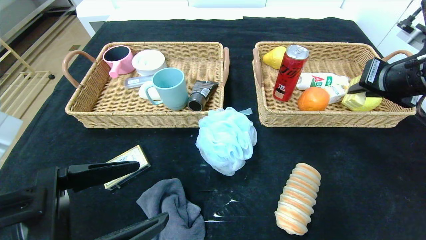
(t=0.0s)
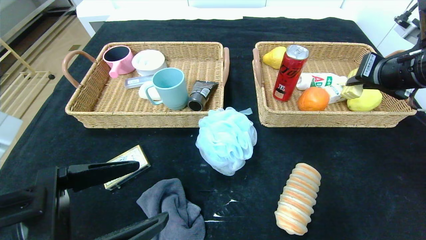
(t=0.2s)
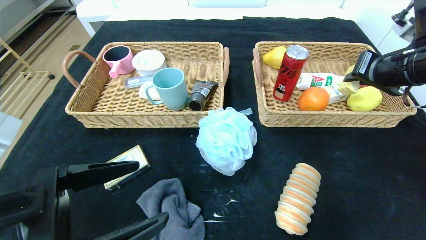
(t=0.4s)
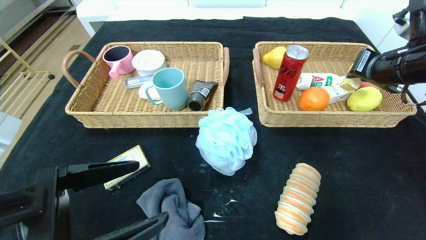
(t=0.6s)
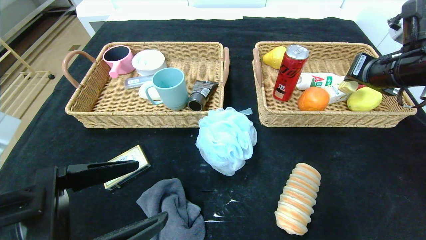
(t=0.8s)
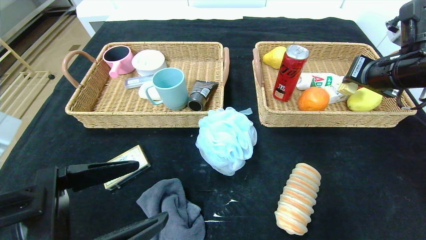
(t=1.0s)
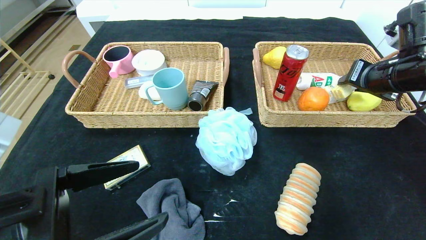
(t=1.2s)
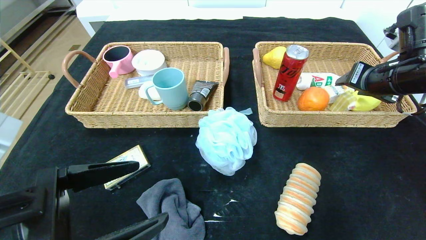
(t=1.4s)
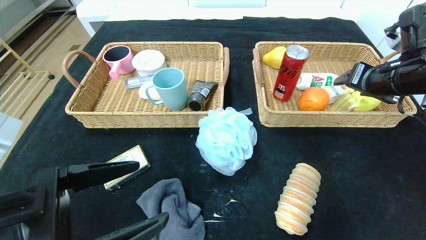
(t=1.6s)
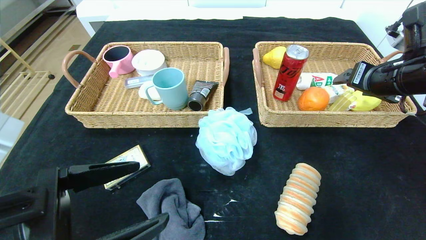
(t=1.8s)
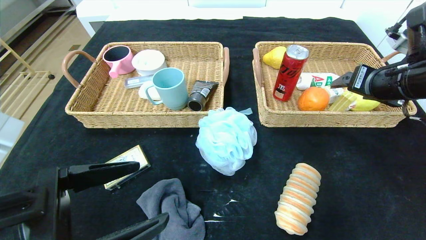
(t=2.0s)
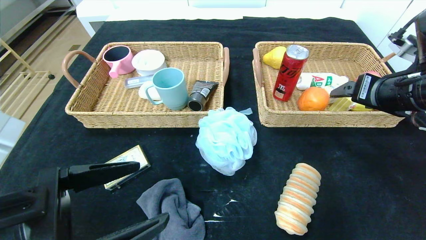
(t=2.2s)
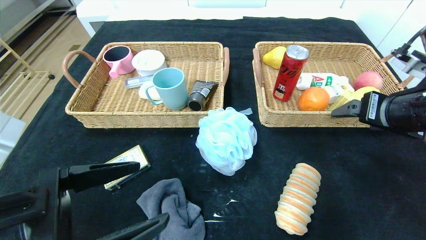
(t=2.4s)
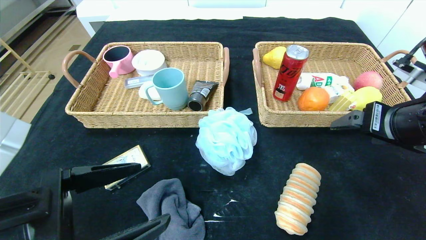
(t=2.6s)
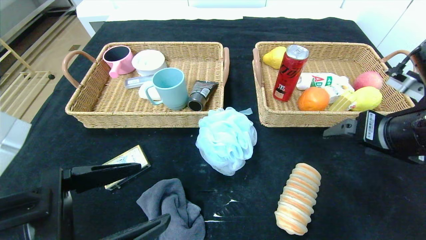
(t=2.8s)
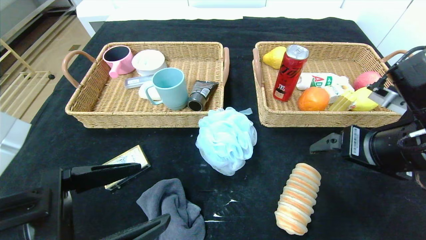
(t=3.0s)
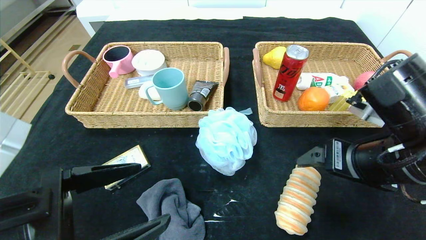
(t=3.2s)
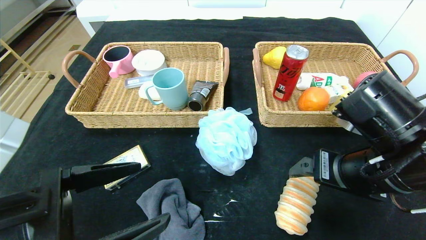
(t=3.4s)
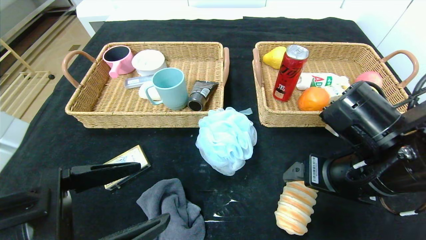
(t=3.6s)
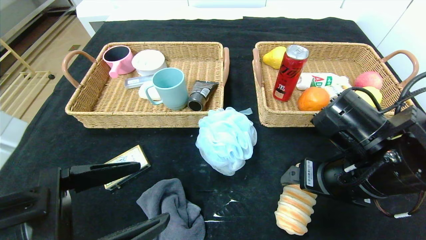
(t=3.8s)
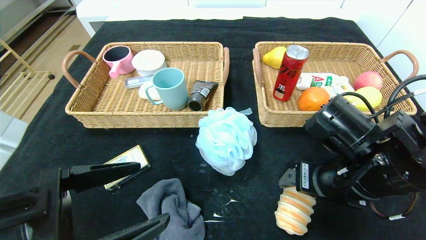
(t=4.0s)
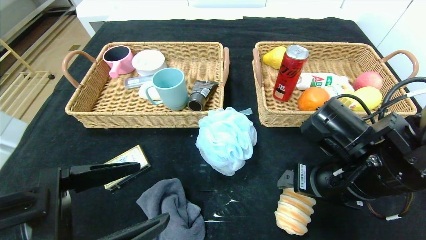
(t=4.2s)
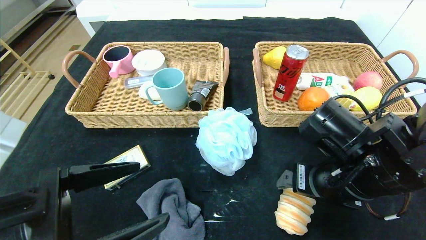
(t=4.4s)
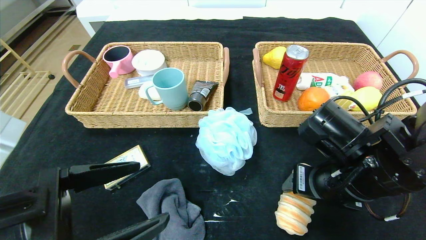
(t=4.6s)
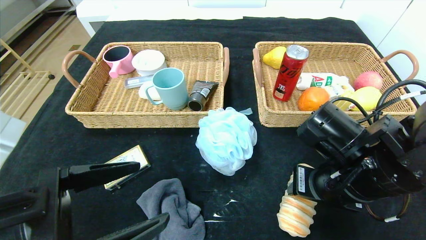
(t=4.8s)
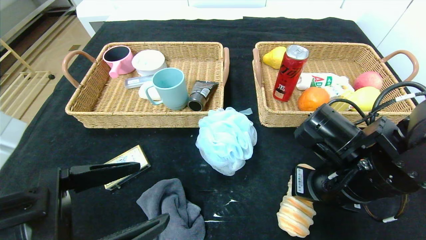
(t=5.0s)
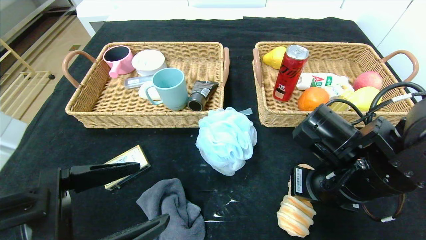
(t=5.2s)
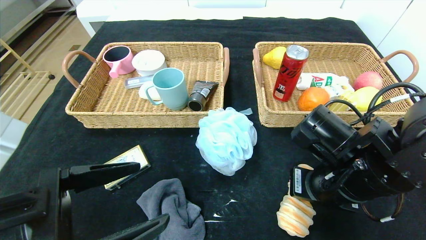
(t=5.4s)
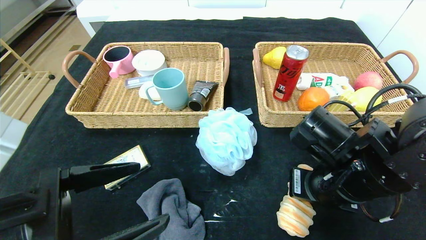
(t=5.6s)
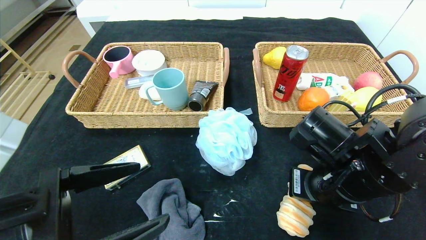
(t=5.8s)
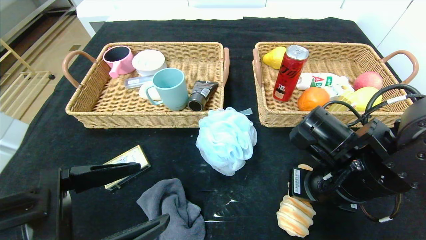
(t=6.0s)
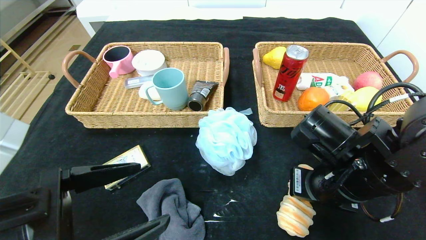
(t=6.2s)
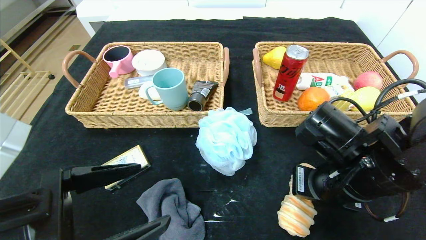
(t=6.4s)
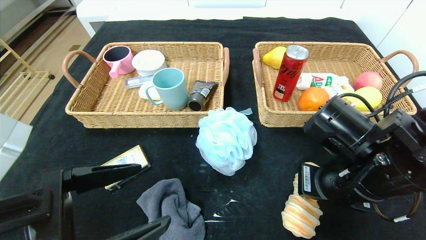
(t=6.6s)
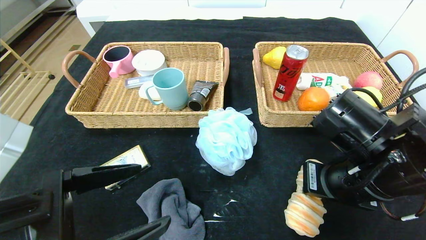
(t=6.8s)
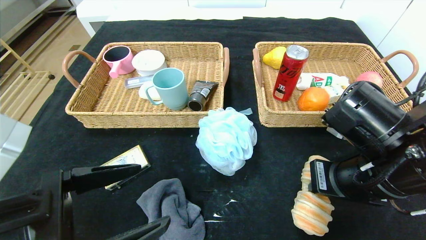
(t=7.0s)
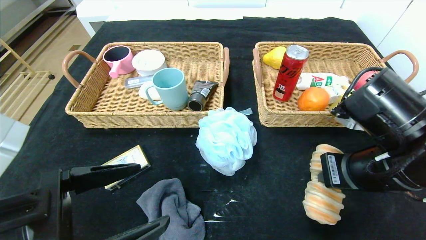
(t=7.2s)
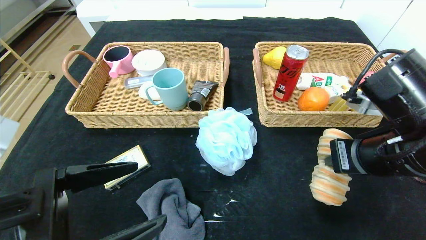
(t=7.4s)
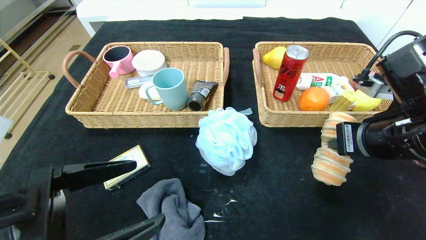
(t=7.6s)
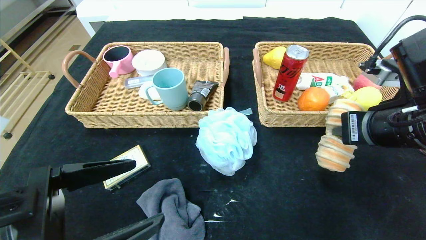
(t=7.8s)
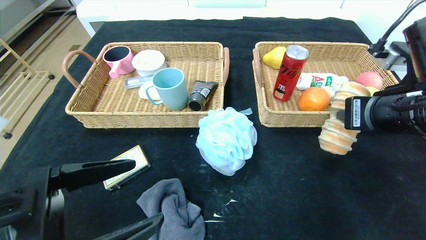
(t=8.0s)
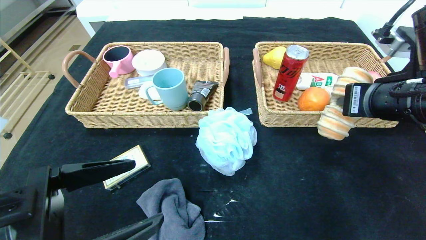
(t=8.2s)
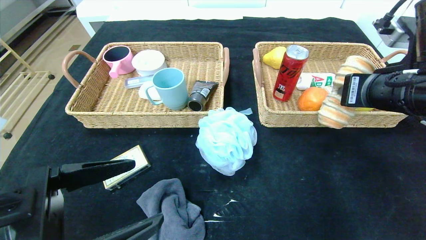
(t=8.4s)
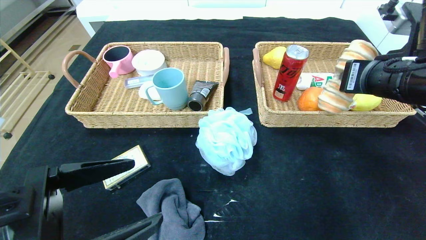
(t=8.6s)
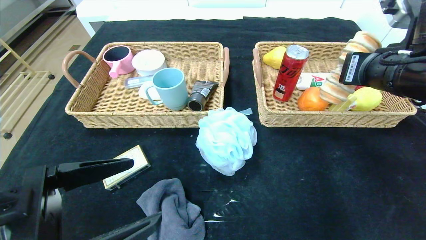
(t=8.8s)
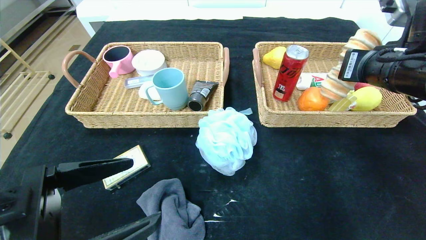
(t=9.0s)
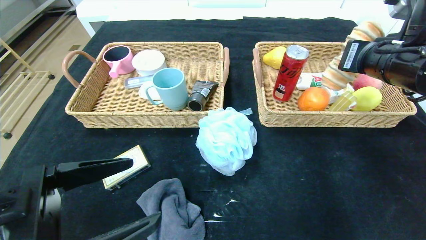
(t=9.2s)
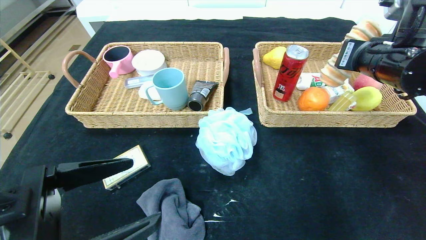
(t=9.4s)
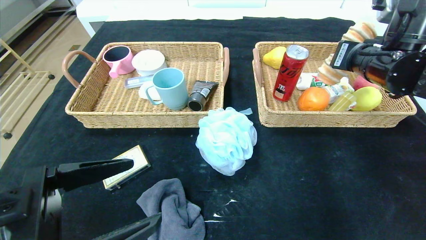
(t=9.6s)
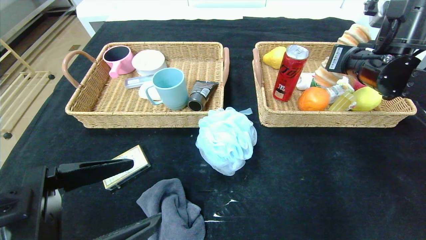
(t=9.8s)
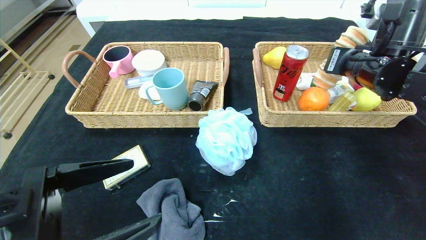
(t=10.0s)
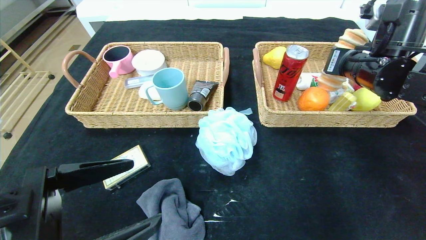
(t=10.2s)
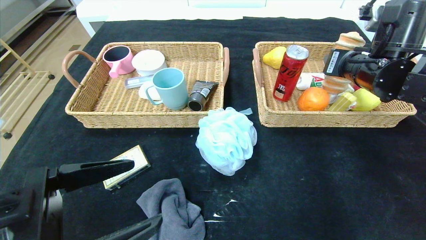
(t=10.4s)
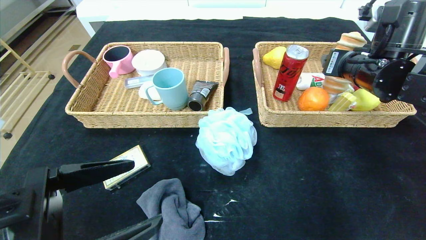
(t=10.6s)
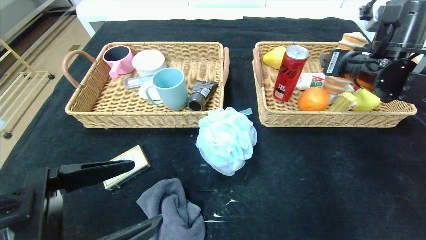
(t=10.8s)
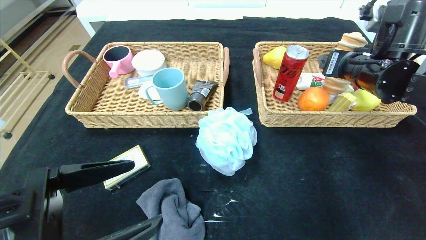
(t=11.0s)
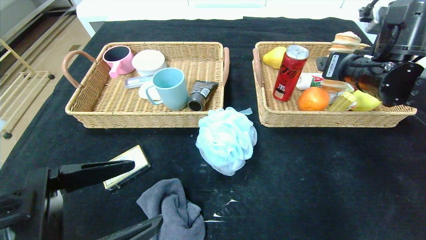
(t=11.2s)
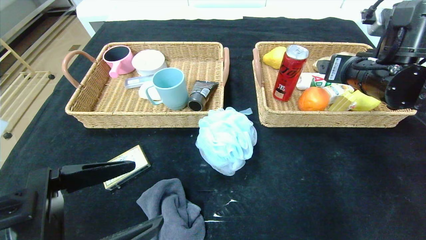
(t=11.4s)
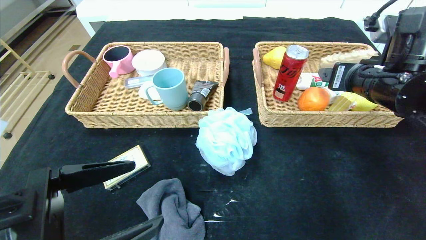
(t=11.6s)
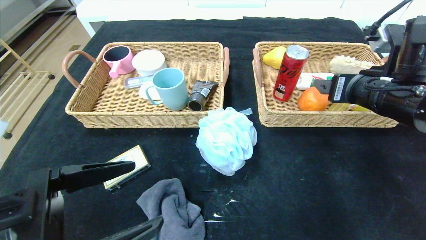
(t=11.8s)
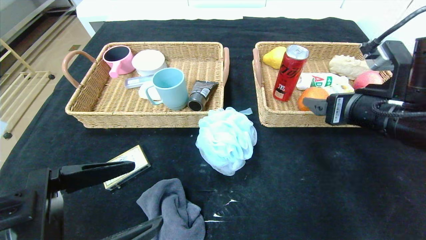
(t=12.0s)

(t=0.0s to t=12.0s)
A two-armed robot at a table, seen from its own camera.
Step, t=1.6s - t=11.2s: Grasp the long bread and put it in the right basket.
t=0.0s - t=1.6s: The right gripper opens up.
t=1.6s - t=3.0s: The right gripper is displaced backward and to the left by roughly 15 cm.
t=3.0s - t=4.4s: The right gripper is displaced to the left and downward by approximately 10 cm.
t=4.4s - t=6.0s: The right gripper closes.
t=6.0s - t=7.6s: The right gripper is displaced upward and to the right by approximately 10 cm.
t=7.6s - t=9.0s: The right gripper travels forward and upward by roughly 10 cm.
t=9.0s - t=10.4s: The right gripper heads forward, covering about 5 cm, and opens.
t=10.4s - t=12.0s: The right gripper is displaced backward by some 10 cm, and opens.

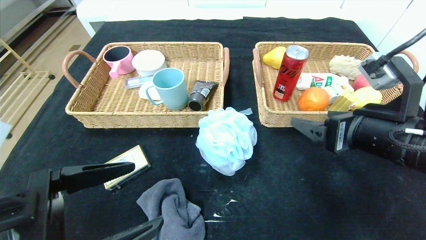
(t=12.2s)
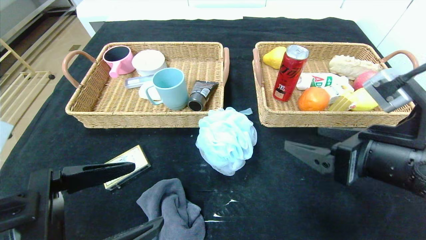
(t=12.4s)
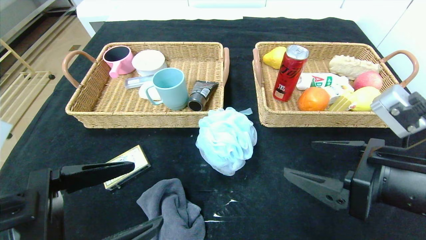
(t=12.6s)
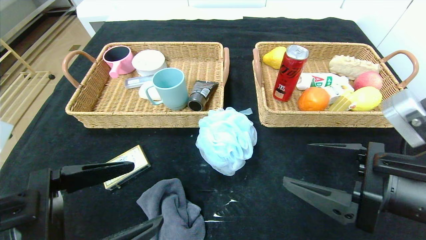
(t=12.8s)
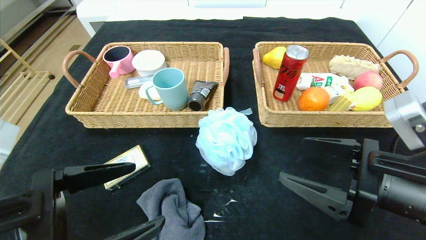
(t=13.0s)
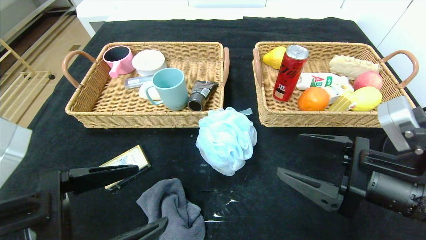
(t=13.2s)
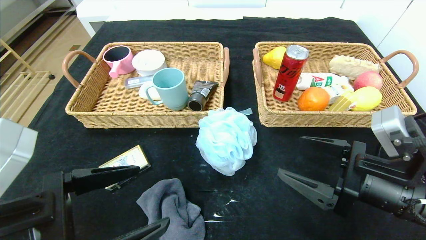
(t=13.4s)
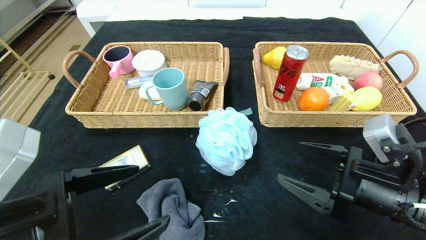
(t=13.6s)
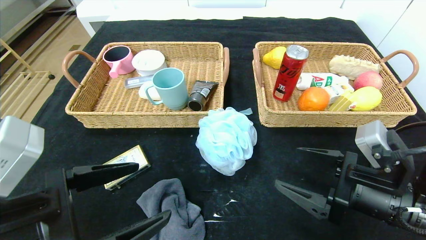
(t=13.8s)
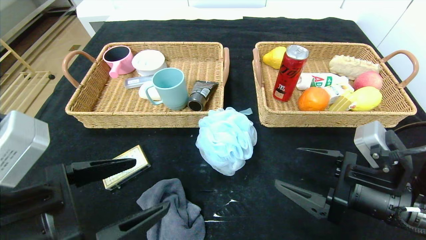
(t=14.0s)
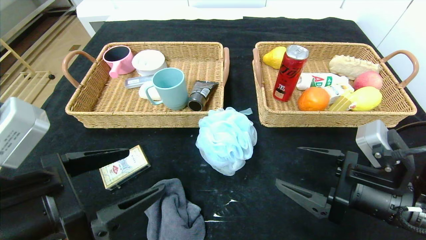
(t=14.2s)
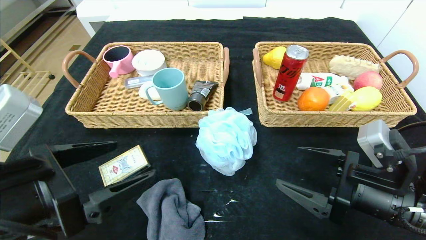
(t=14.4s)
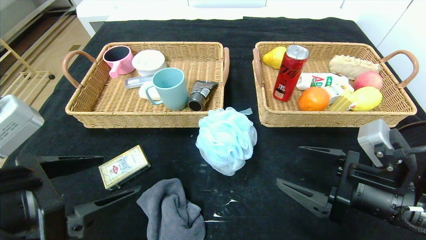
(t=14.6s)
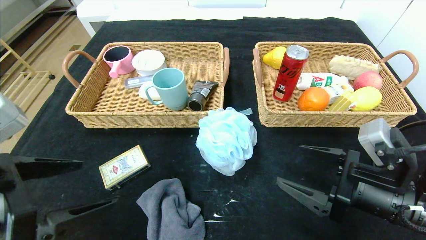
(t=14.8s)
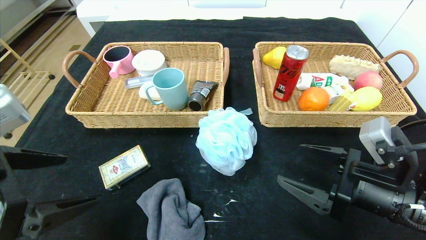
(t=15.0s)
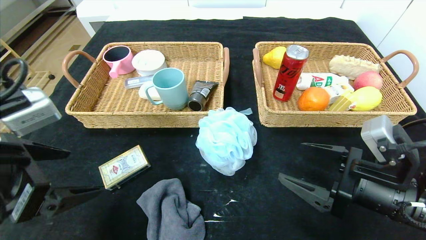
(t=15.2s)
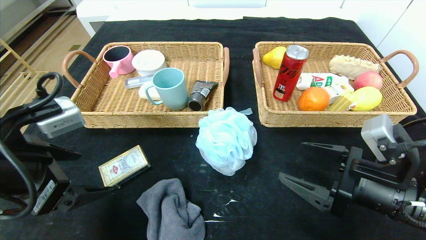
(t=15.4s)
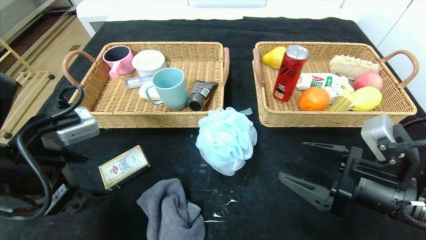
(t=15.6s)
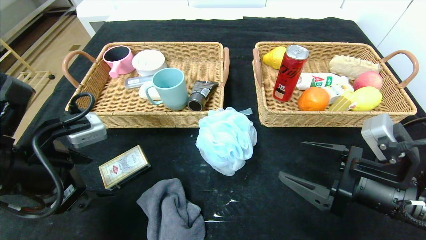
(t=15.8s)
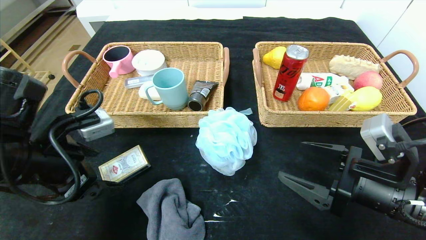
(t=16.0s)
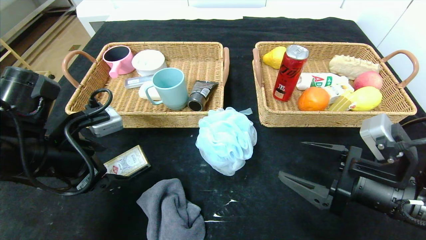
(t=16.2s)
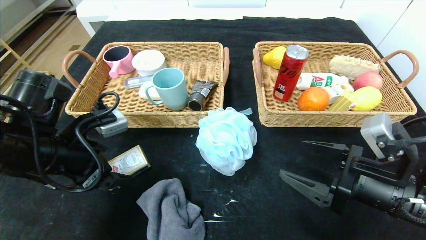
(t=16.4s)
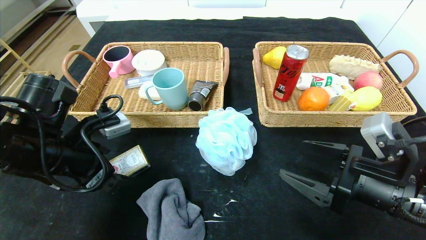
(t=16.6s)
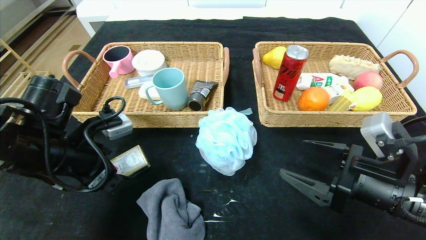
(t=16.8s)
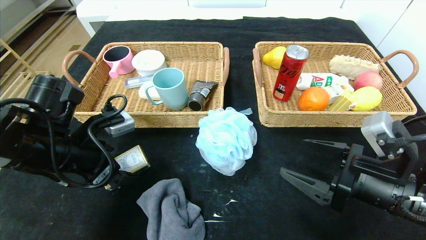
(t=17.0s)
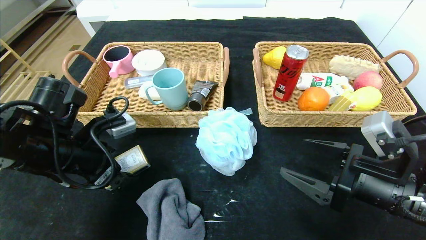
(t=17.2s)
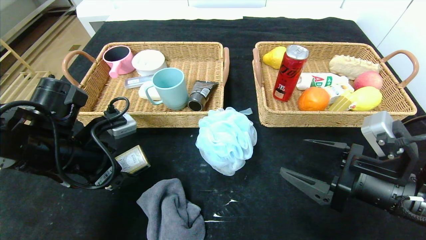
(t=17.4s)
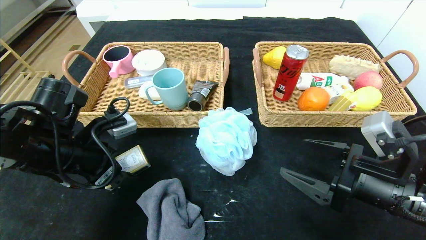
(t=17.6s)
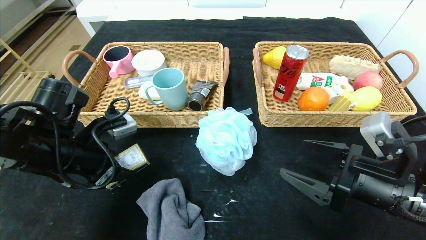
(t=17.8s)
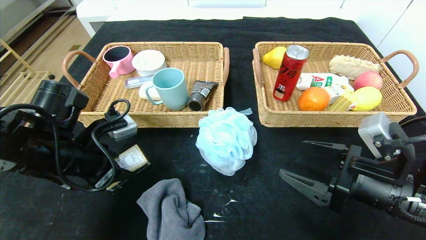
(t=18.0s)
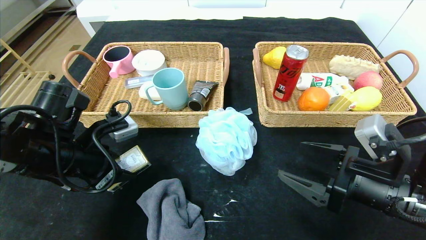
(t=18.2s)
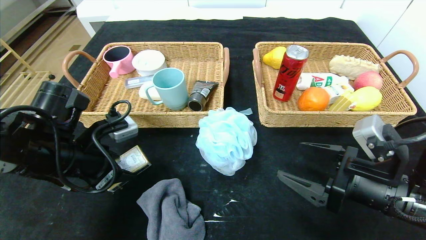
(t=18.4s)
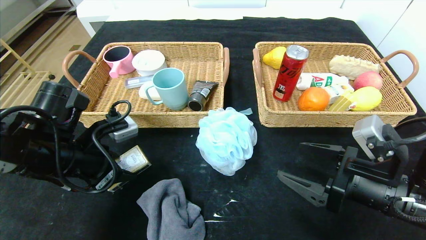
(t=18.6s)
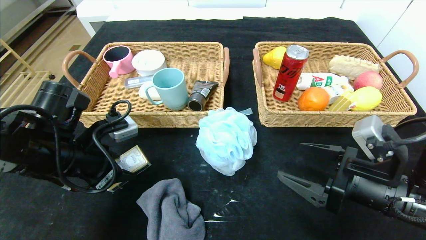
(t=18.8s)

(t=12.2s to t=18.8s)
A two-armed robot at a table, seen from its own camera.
t=12.2s - t=13.8s: The right gripper heads downward, covering roughly 10 cm.
t=13.8s - t=15.4s: The left gripper travels forward and to the left by about 10 cm.
t=15.4s - t=17.2s: The left gripper is displaced forward and downward by roughly 10 cm.
t=17.2s - t=18.8s: The left gripper closes.
